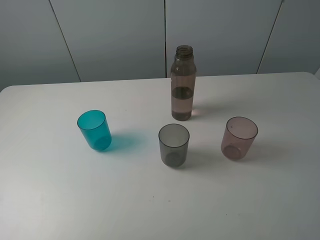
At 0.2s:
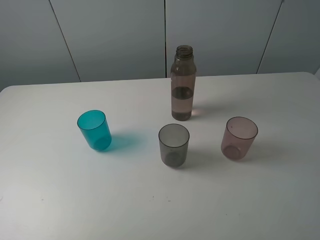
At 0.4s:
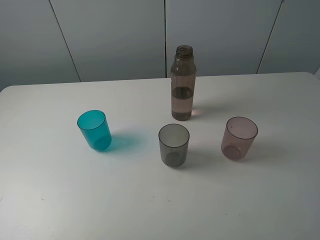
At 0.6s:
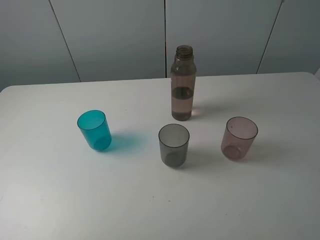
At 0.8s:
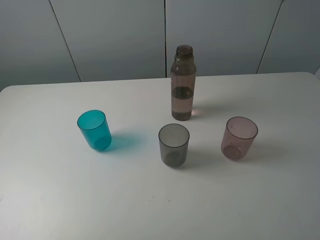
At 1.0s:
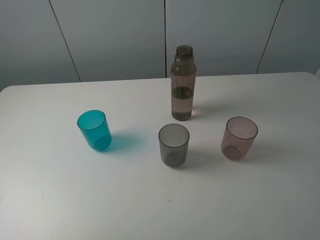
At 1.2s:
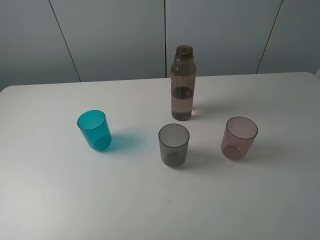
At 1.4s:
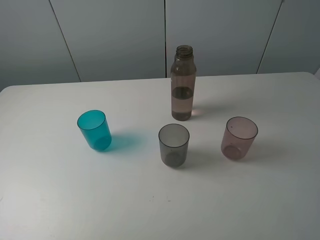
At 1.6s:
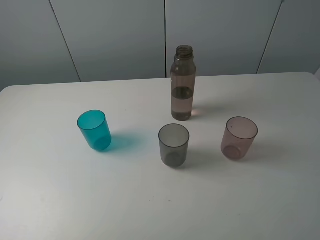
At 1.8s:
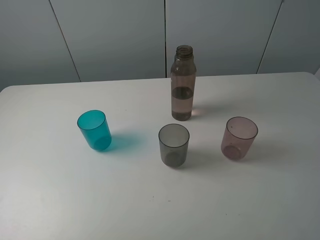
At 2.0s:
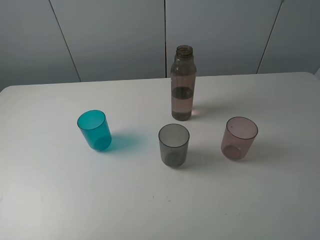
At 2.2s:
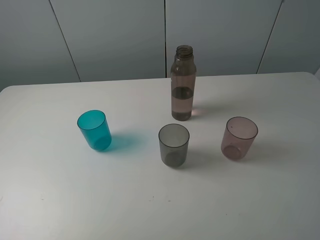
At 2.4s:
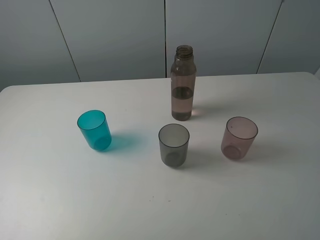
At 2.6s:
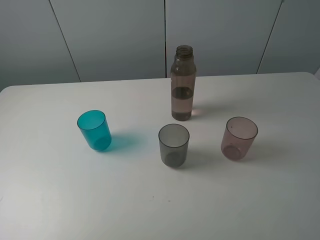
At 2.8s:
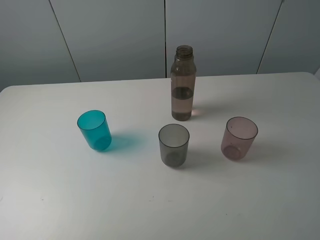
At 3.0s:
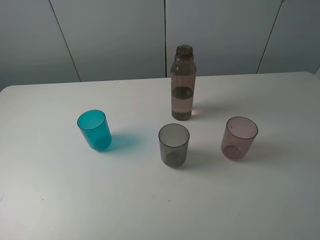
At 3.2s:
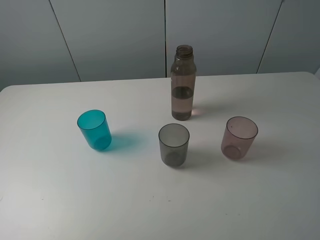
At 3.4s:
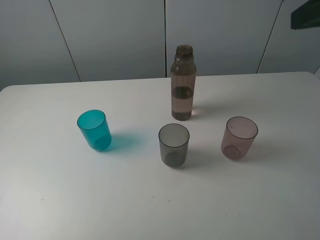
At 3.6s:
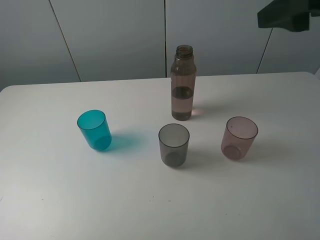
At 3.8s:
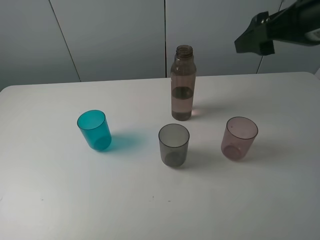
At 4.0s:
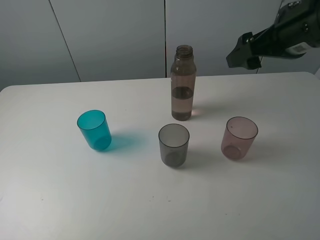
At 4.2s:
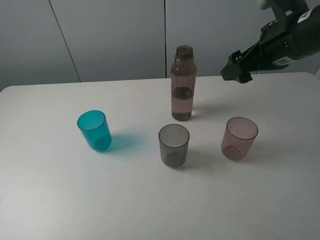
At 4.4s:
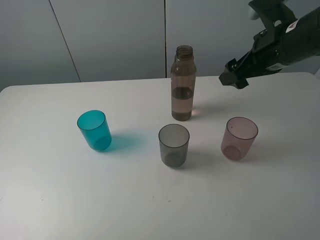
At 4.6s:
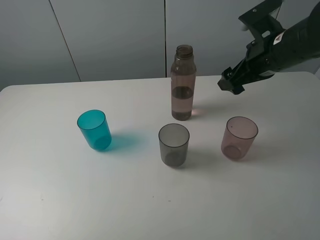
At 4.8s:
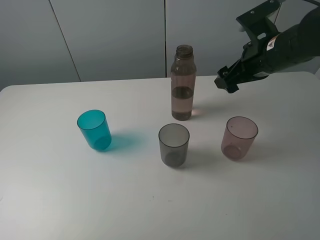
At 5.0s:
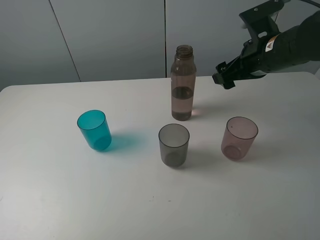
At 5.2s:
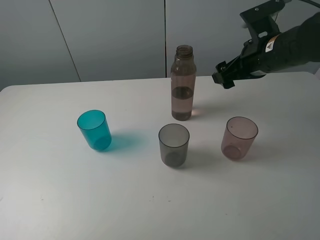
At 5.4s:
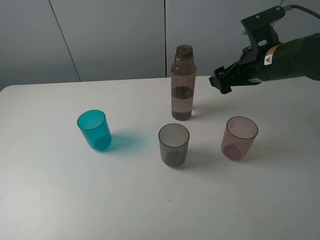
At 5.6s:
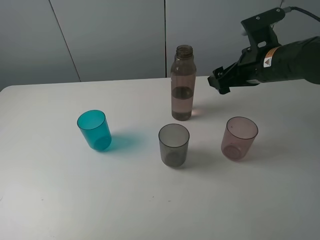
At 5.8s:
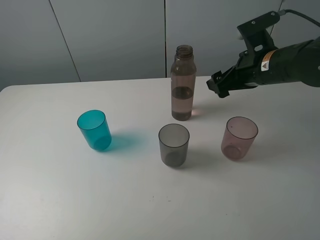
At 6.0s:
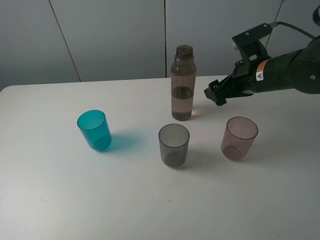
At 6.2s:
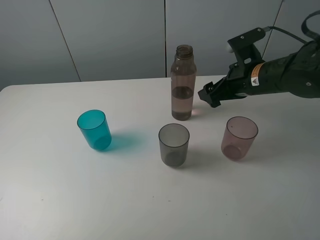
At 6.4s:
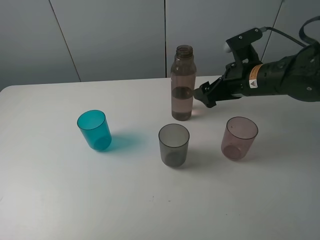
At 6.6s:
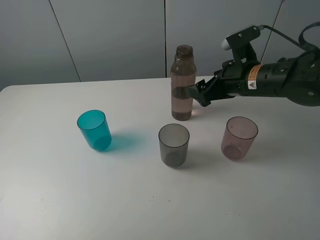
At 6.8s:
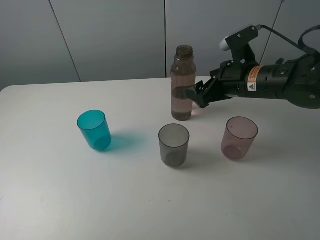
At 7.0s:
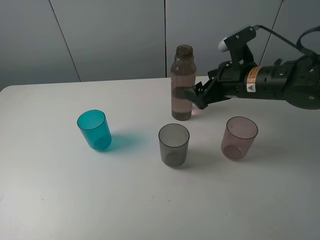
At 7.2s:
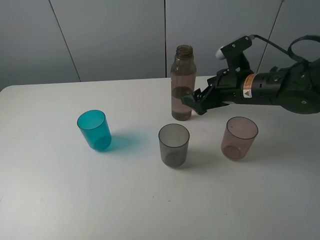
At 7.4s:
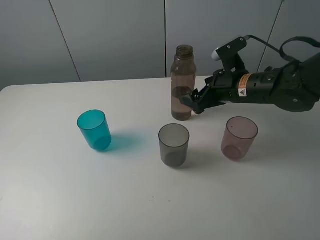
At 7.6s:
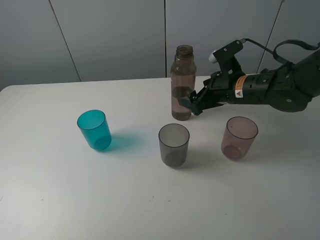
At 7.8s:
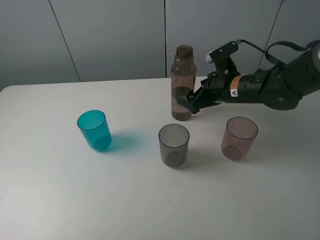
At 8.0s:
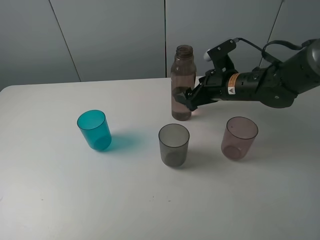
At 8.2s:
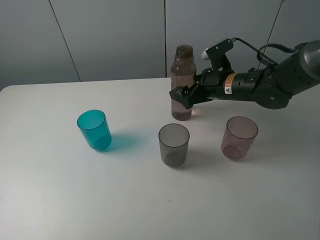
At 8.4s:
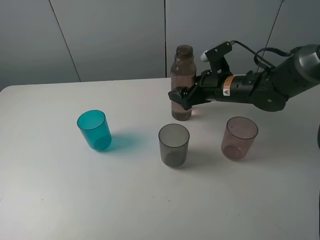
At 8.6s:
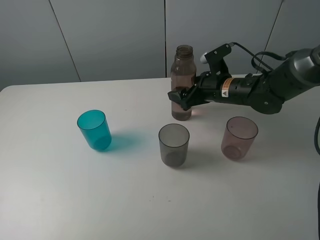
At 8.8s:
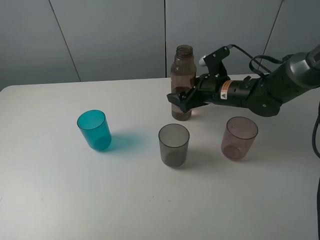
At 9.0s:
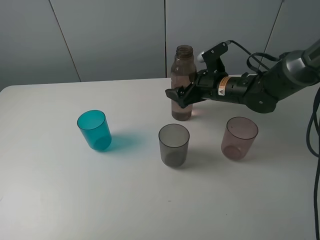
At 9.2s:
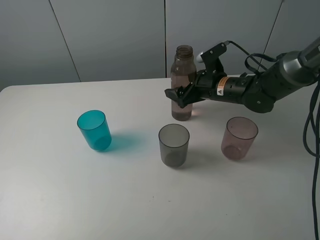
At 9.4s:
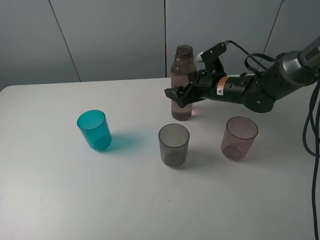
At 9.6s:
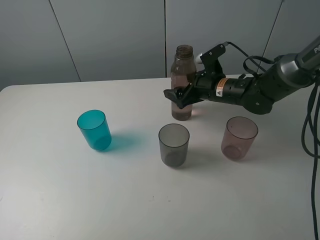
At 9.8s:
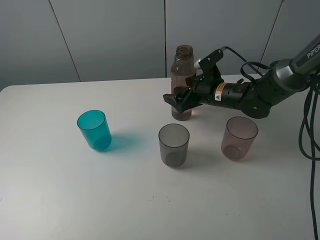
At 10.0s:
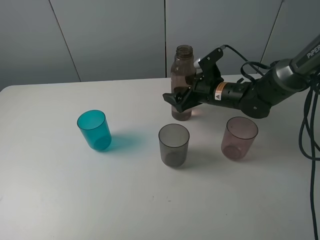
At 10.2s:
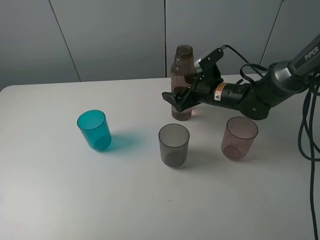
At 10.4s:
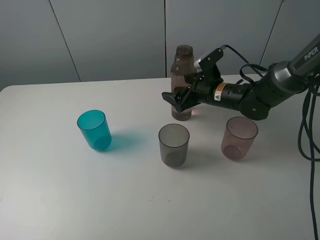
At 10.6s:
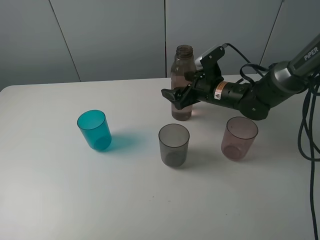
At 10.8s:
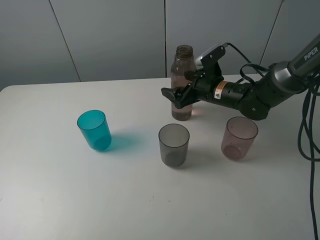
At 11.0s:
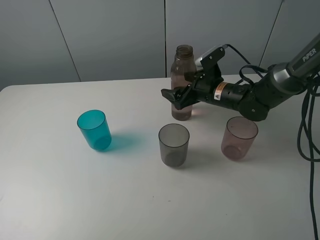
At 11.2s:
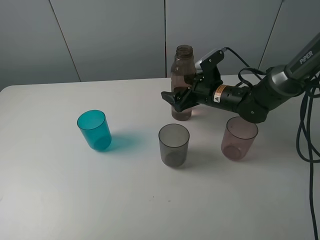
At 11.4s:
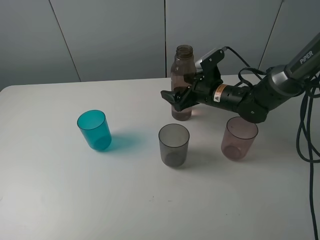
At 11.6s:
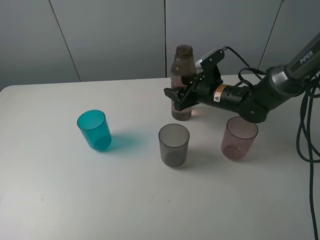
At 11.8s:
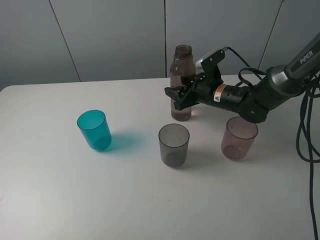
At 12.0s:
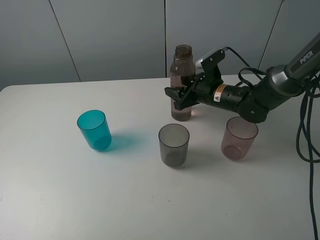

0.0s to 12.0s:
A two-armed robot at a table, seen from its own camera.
Task of the whole recording: pick up the bottle filled with water and pour water into the middle cup of the three cups.
Step, 0.0s to 12.0s: Grasp the brown bottle with the right gripper.
0.0s to 1.6s: Both grippers stay put.
3.0s to 4.4s: The right gripper heads forward and downward, covering some 25 cm.
4.4s to 6.0s: The right gripper heads downward, covering about 5 cm.
6.0s to 7.6s: The right gripper moves roughly 5 cm.
7.6s to 9.0s: The right gripper changes place by about 5 cm.
9.0s to 10.4s: The grippers stay close to where they were, moving slightly.
10.4s to 12.0s: The right gripper closes.

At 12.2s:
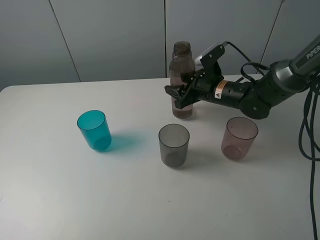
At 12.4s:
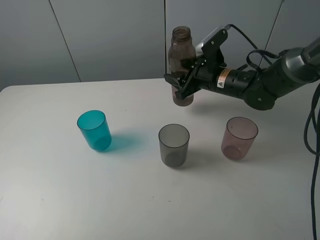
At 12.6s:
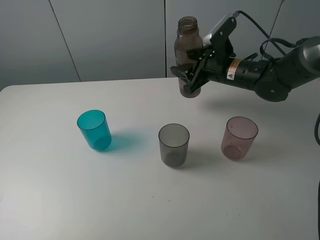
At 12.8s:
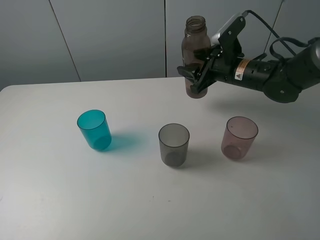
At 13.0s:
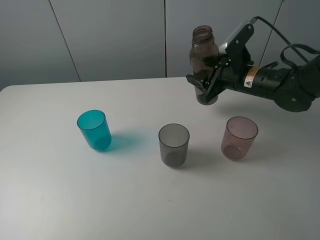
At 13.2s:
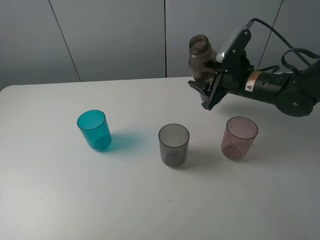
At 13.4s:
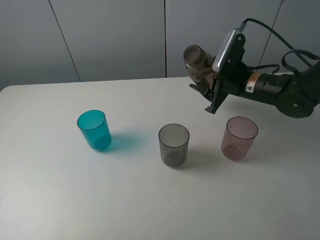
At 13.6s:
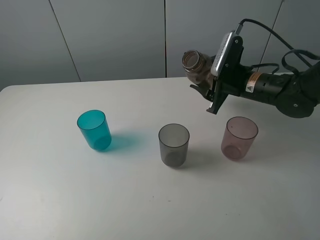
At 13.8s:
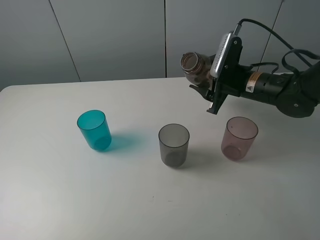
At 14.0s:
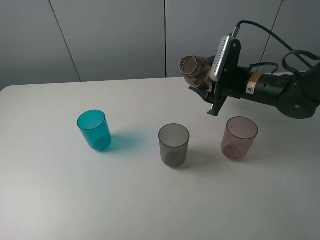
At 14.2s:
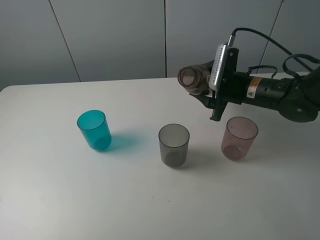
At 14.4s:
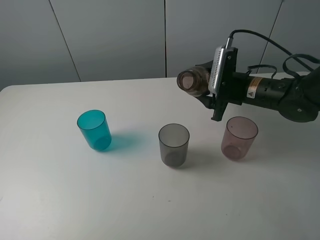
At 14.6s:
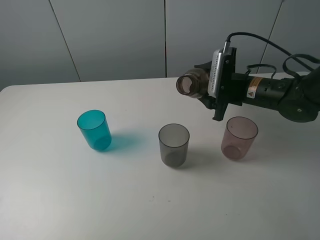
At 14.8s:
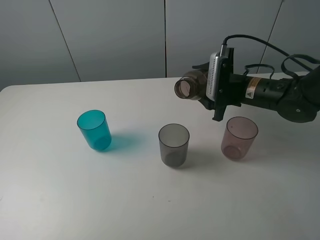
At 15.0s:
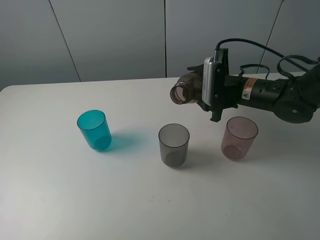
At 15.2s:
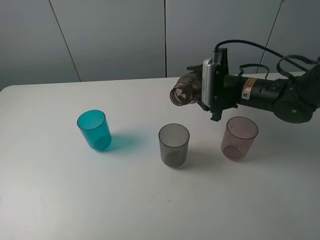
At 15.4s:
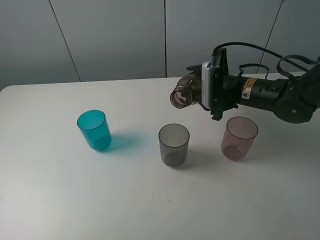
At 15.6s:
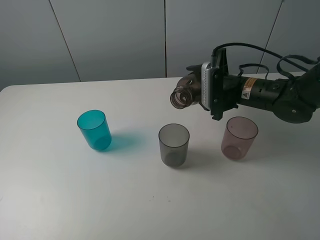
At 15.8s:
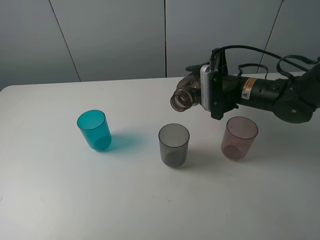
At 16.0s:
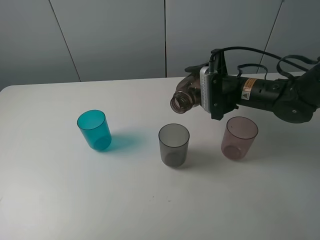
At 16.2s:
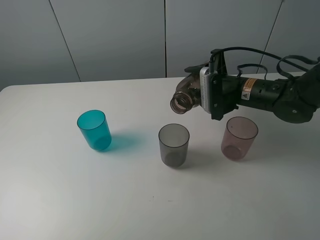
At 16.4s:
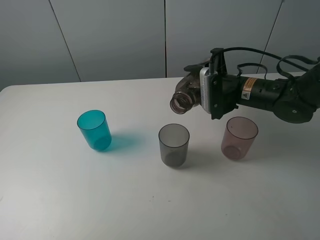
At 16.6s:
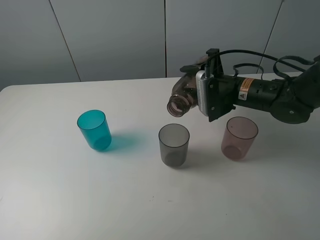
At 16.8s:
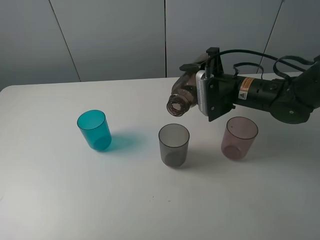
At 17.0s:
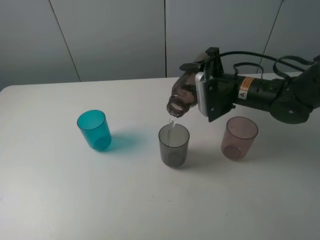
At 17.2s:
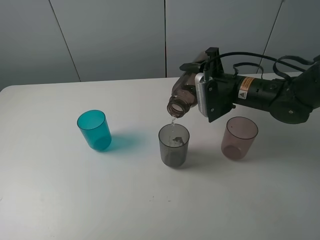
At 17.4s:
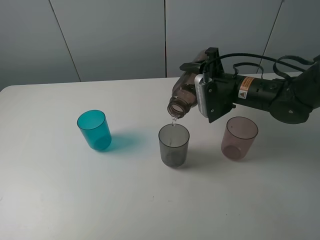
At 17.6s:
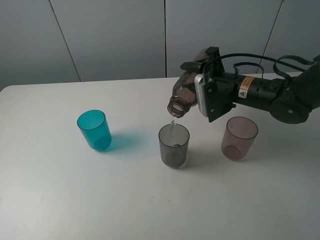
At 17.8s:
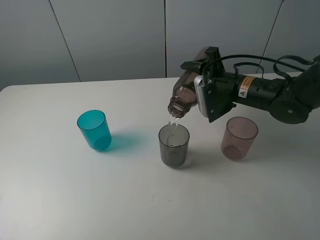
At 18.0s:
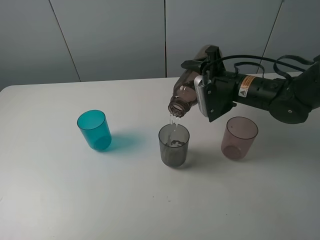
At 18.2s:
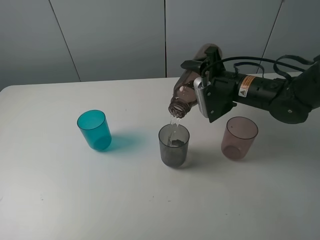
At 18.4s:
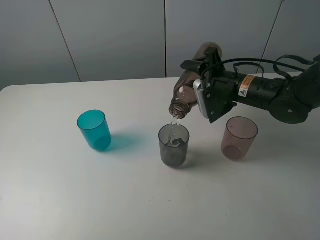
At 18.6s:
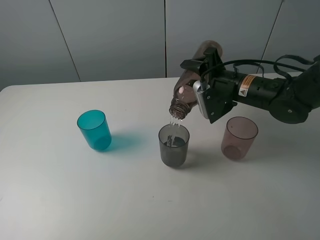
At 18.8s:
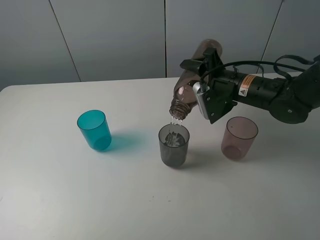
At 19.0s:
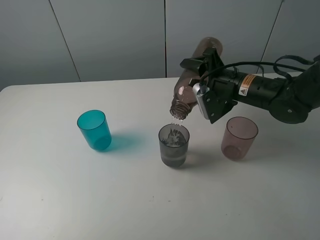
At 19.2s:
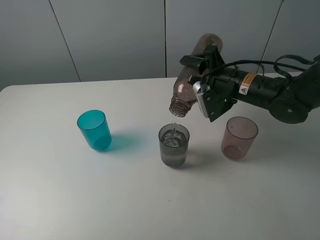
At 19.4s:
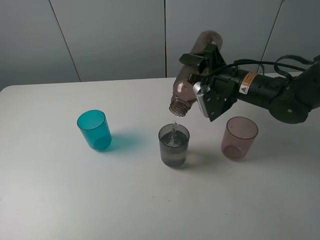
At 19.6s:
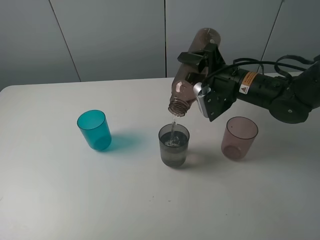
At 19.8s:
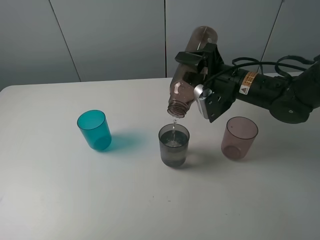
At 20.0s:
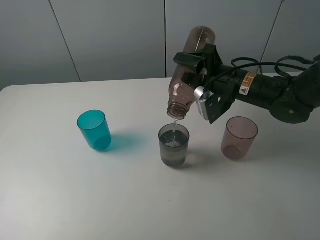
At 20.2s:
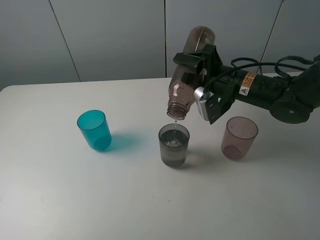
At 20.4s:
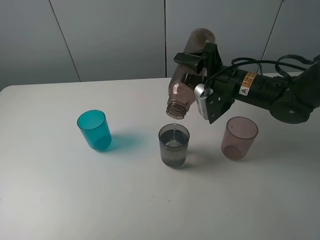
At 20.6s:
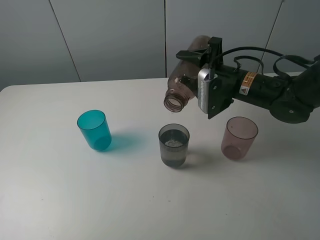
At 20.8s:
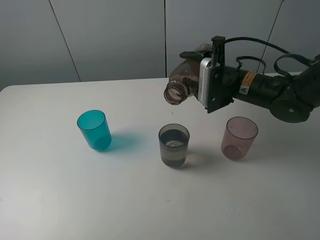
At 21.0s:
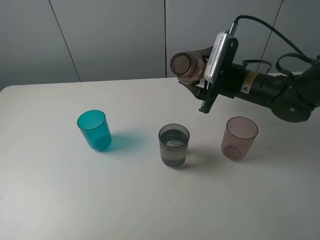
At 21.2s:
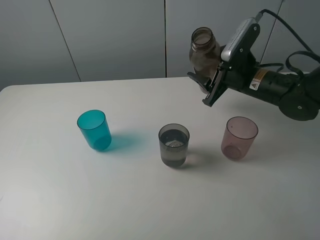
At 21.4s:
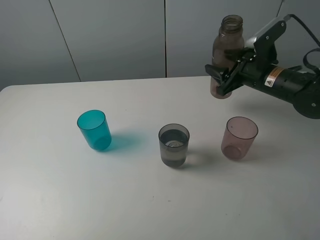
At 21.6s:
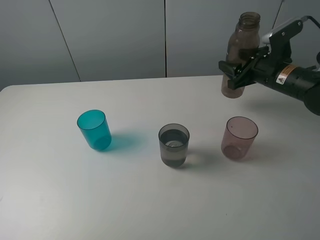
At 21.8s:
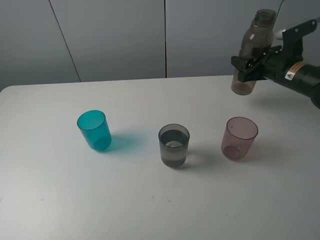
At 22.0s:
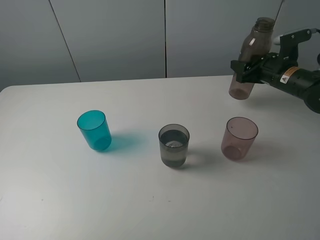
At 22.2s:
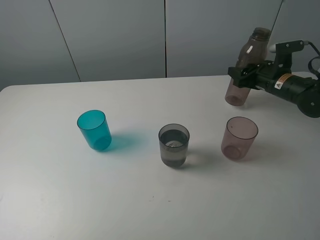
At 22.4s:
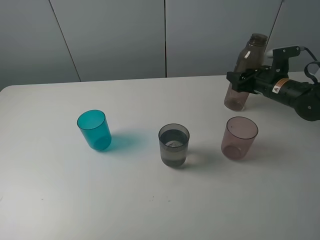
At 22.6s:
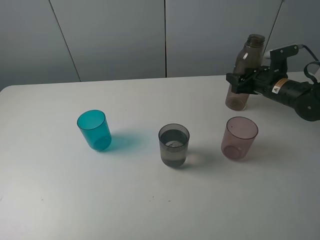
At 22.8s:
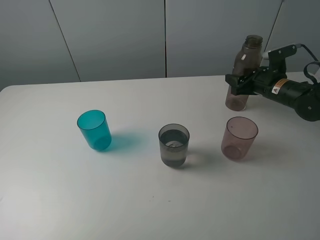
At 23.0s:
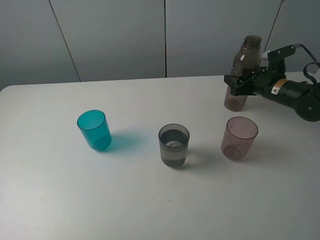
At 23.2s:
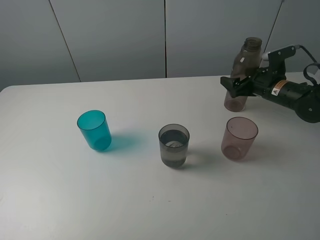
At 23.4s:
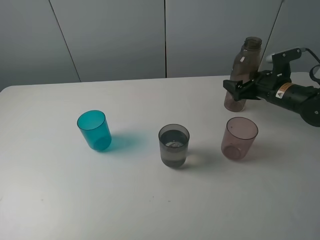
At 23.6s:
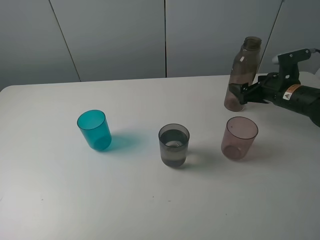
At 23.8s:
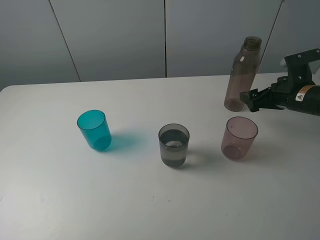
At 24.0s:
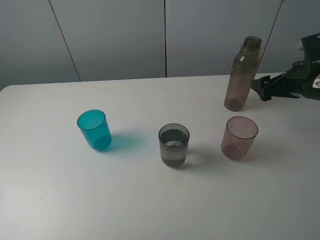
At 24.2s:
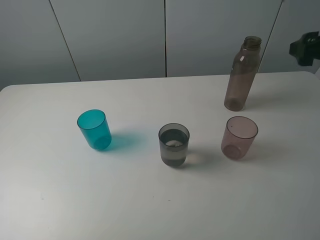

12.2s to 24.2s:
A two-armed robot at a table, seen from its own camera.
Task of the whole recording: pick up the bottle filled with water and pour water into the middle cup of the three cups.
Step, 12.2s to 21.6s: Pour water from brown bottle to grey cup with the right gripper.
Step, 21.8s to 24.0s: Place the brown bottle with the right gripper.
12.2s to 13.8s: The right gripper moves roughly 5 cm.
15.2s to 16.6s: The grippers stay close to where they were, moving slightly.
16.6s to 18.2s: The grippers stay close to where they were, moving slightly.
18.2s to 19.8s: There are only small adjustments of the grippers.
21.2s to 22.6s: The right gripper moves to the right, downward and forward, about 15 cm.
22.6s to 24.2s: The right gripper travels upward and backward by roughly 25 cm, and opens.
